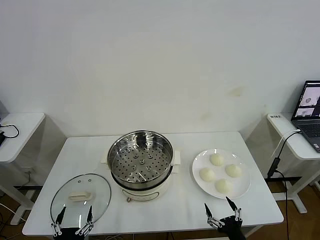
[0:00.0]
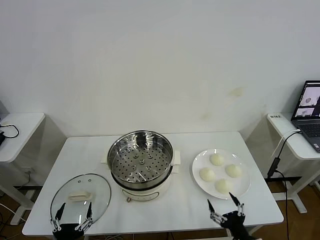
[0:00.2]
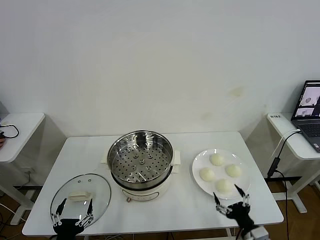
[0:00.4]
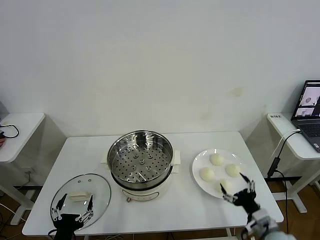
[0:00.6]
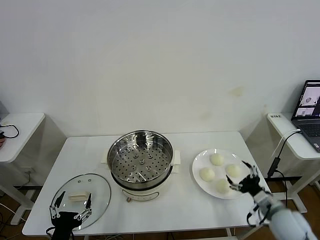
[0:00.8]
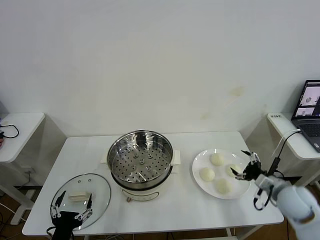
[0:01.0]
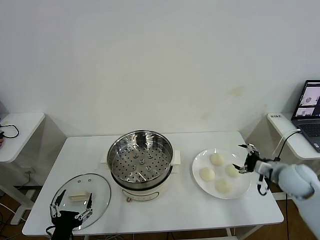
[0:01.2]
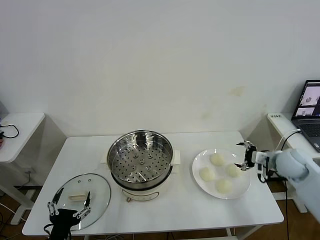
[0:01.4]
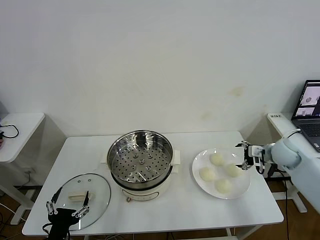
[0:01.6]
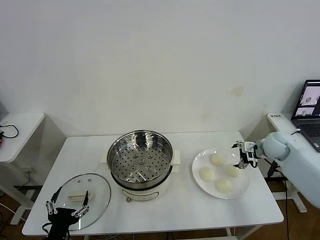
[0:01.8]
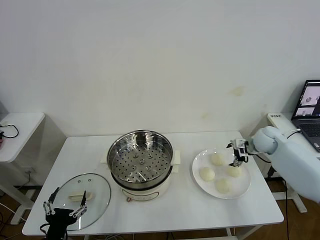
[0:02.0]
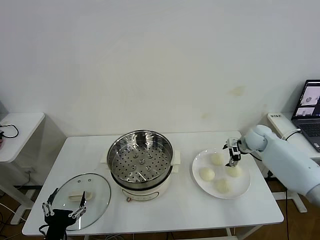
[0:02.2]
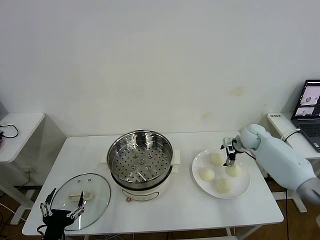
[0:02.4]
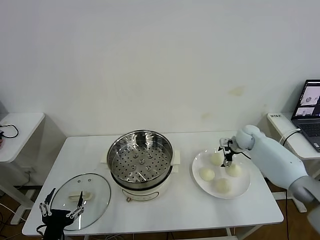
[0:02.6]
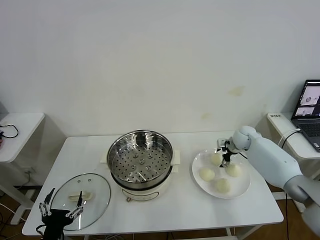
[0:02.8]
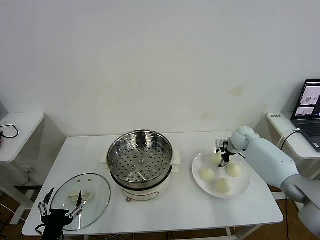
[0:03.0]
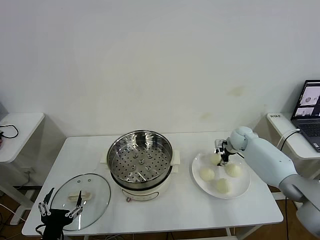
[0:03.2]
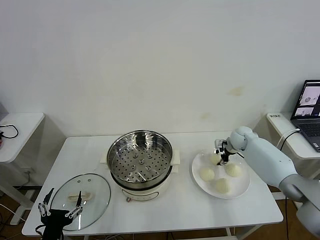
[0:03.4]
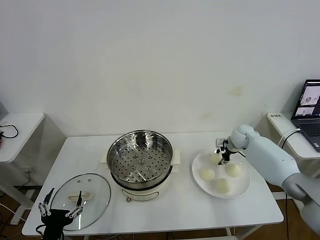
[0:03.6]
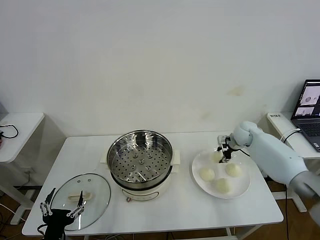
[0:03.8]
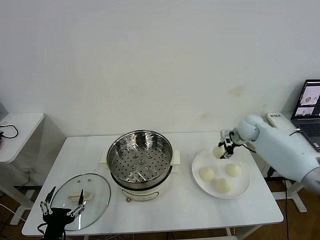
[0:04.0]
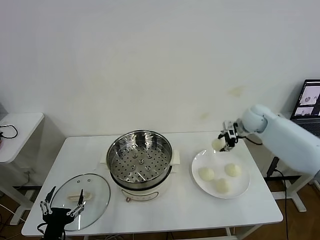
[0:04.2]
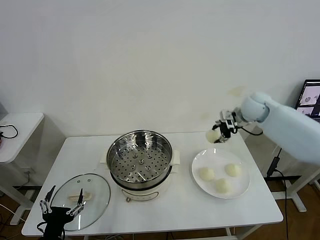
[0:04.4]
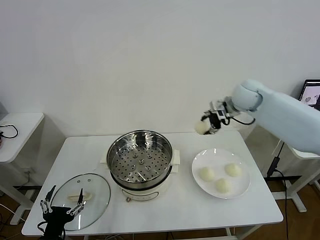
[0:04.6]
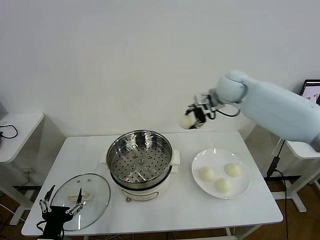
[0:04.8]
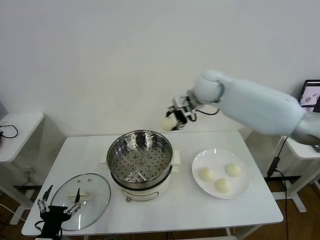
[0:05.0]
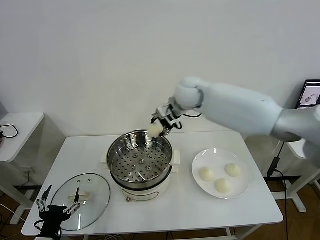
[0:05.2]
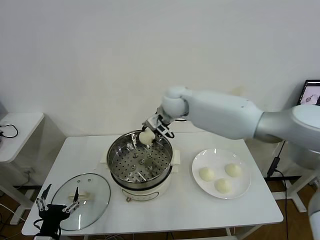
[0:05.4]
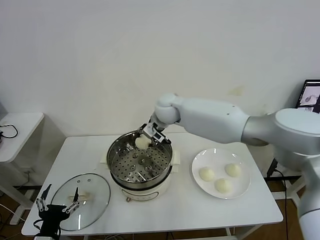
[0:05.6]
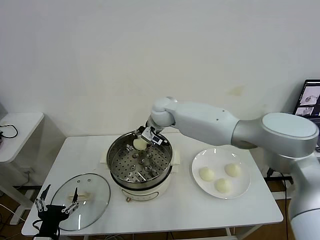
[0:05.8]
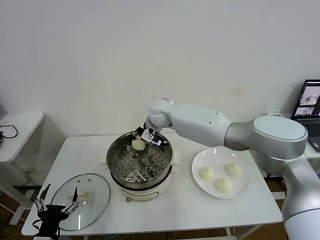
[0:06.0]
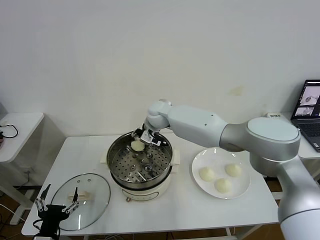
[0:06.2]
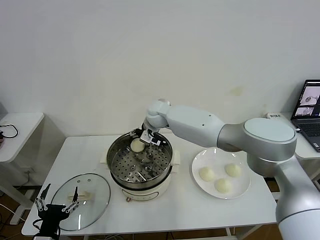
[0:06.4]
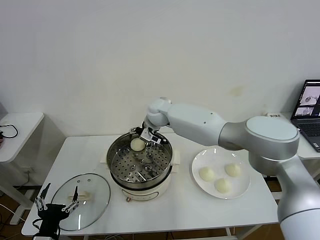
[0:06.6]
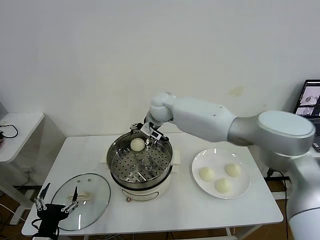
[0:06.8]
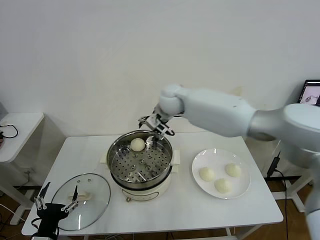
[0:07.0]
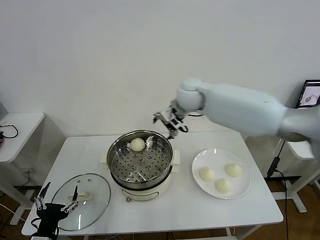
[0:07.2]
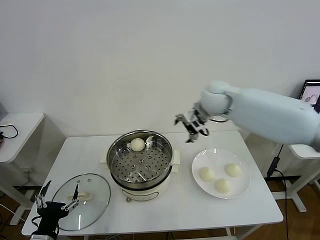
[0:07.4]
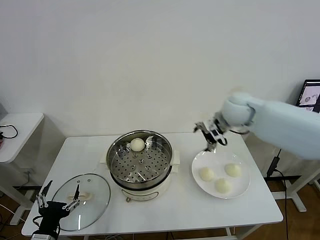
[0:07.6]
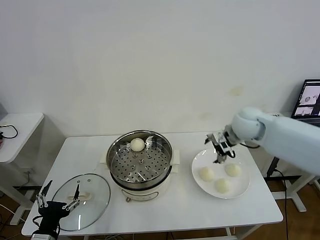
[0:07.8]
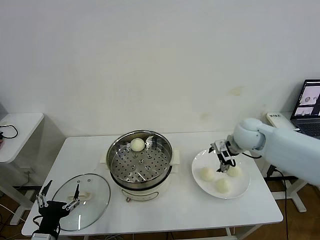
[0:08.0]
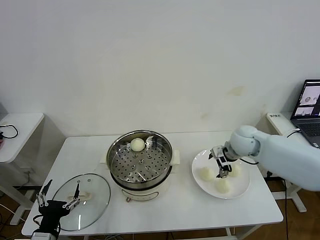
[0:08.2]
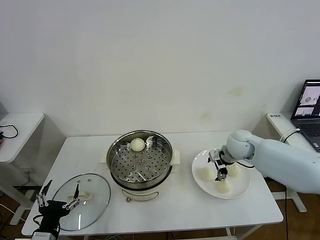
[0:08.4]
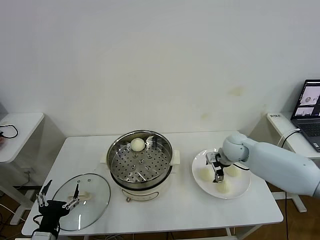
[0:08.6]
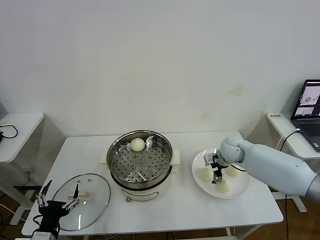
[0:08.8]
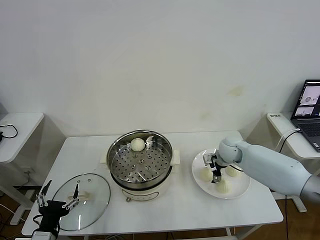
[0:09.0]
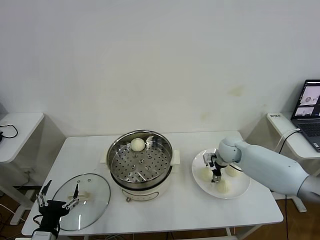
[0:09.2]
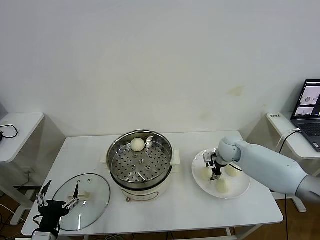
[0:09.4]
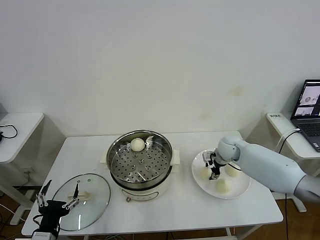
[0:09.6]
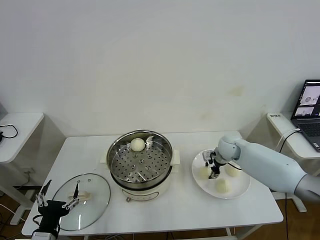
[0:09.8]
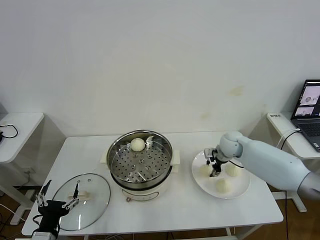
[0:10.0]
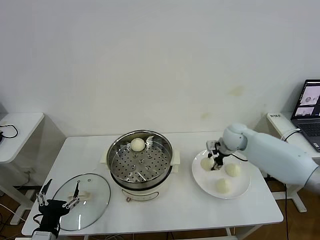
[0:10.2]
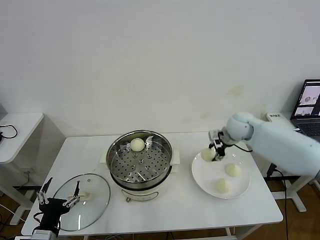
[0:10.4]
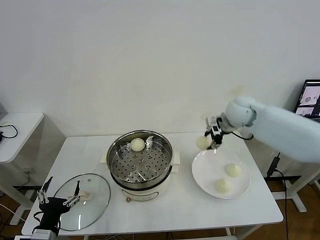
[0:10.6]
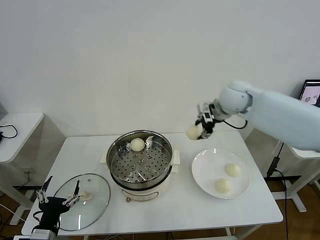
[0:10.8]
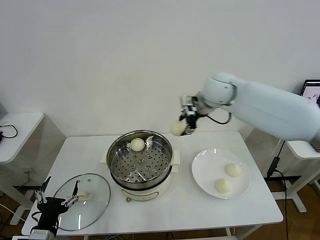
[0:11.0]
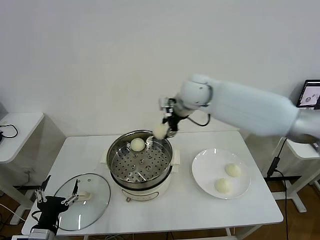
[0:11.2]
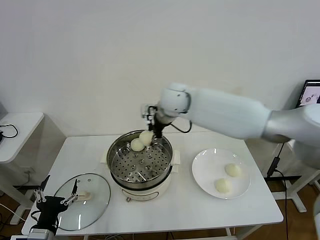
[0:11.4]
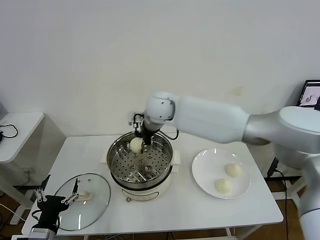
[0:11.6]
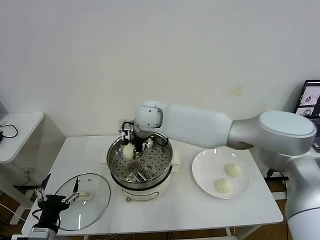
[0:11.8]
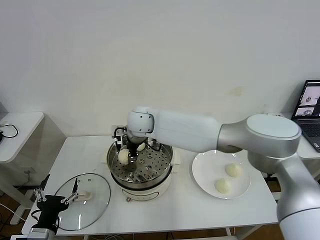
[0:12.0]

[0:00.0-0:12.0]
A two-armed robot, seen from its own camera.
Task of the whole recording: take steamed baozi put them in steamer then cover it.
Step, 0:00.0 to 0:03.4: Grasp the baozi in the plate with right gripper.
Step, 0:03.6 to 0:06.6: Place the baozi on the steamer with right gripper.
Step, 0:06.8 to 0:09.8: Grasp the baozi in the plate with right gripper.
0:01.6 to 0:03.0: The right gripper travels forward, to the left and downward by roughly 15 cm, and closes.
0:03.0 to 0:04.4: The right gripper shifts about 20 cm upward, and closes its fingers.
0:04.4 to 0:06.0: The right gripper is displaced to the left by about 30 cm.
0:06.0 to 0:07.6: The right gripper travels to the right by about 25 cm, and opens up.
0:07.6 to 0:09.0: The right gripper moves downward, approximately 15 cm.
0:09.0 to 0:10.4: The right gripper is displaced upward by roughly 15 cm, and closes its fingers.
0:10.4 to 0:12.0: The right gripper goes roughly 35 cm to the left.

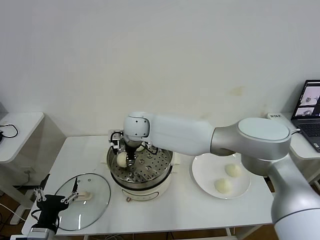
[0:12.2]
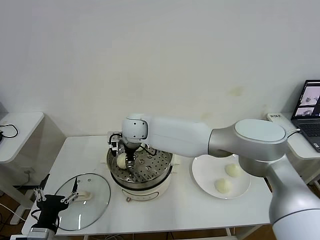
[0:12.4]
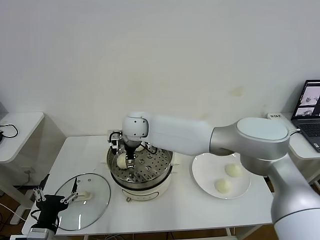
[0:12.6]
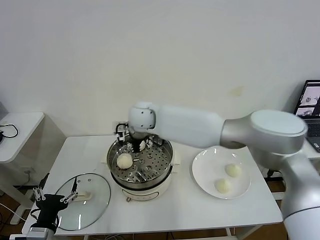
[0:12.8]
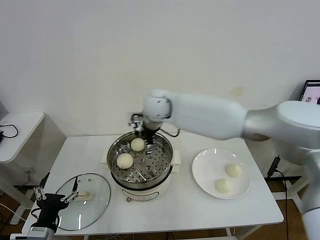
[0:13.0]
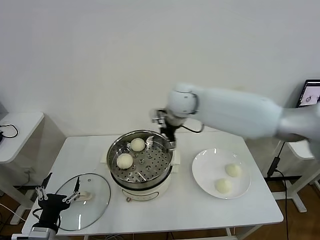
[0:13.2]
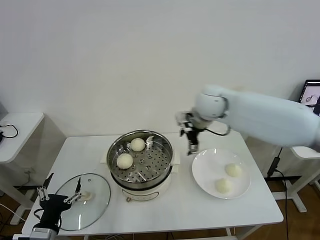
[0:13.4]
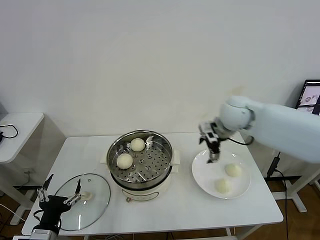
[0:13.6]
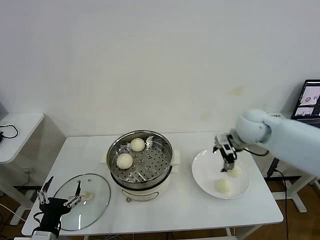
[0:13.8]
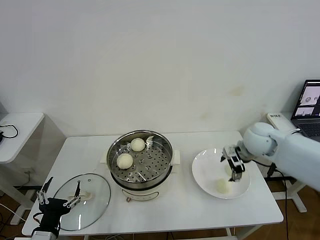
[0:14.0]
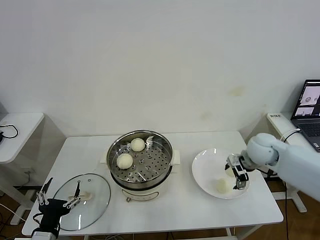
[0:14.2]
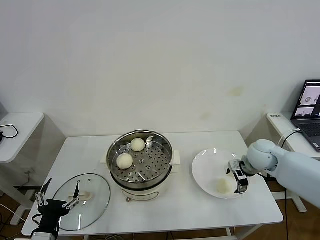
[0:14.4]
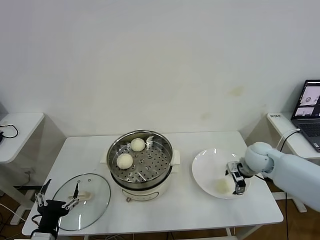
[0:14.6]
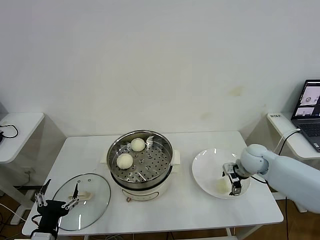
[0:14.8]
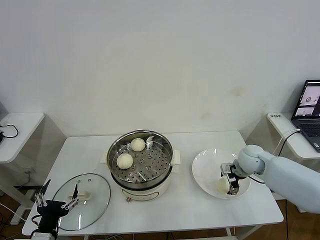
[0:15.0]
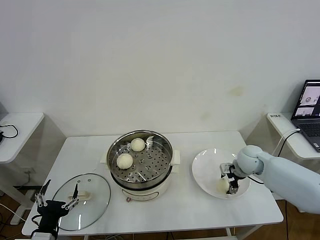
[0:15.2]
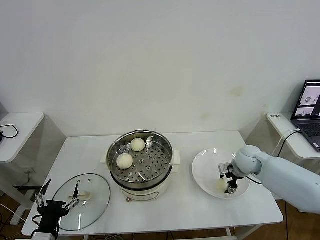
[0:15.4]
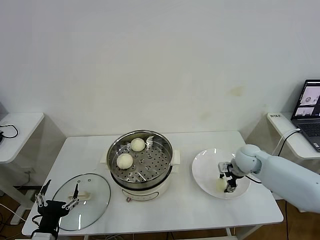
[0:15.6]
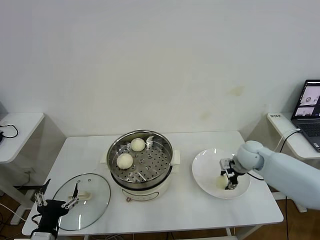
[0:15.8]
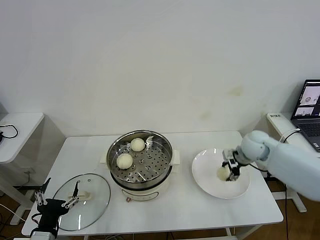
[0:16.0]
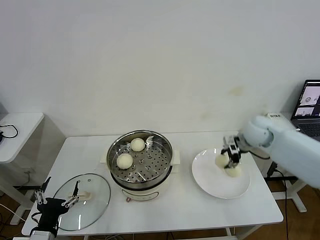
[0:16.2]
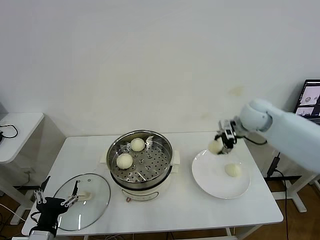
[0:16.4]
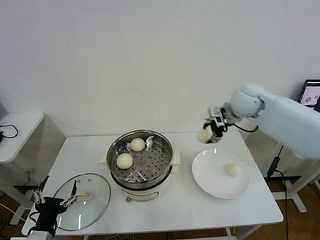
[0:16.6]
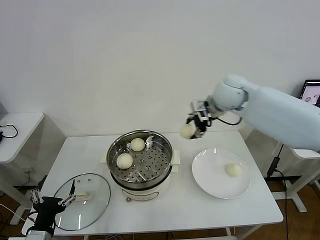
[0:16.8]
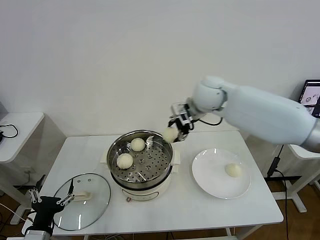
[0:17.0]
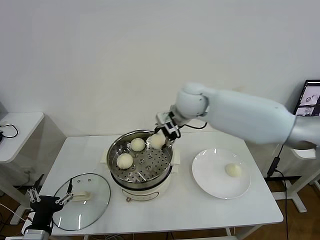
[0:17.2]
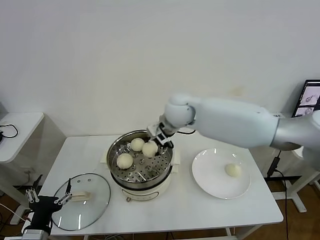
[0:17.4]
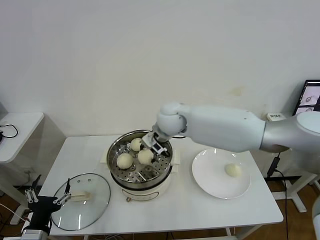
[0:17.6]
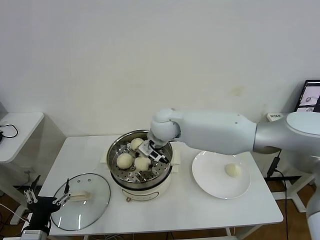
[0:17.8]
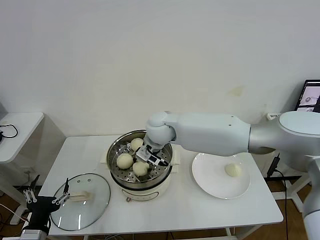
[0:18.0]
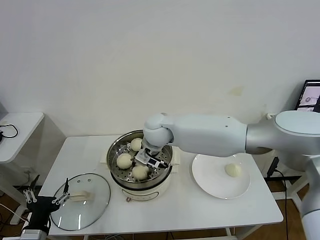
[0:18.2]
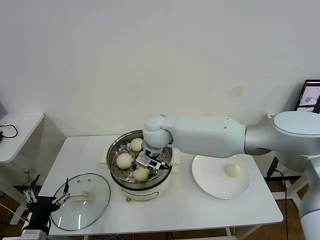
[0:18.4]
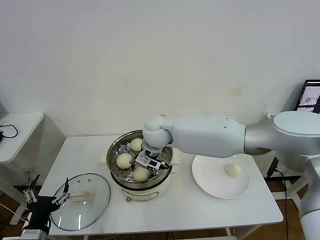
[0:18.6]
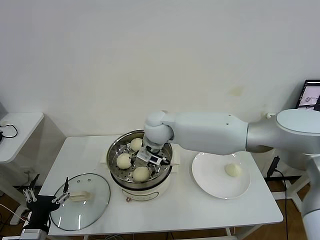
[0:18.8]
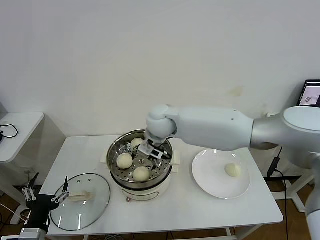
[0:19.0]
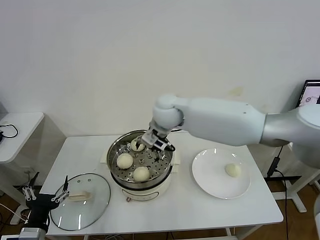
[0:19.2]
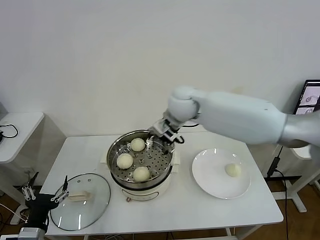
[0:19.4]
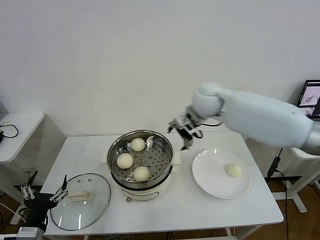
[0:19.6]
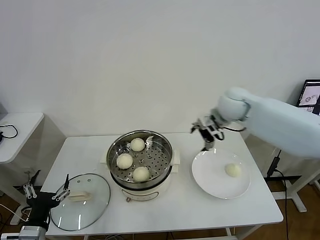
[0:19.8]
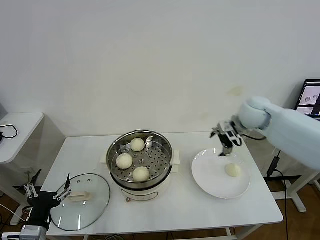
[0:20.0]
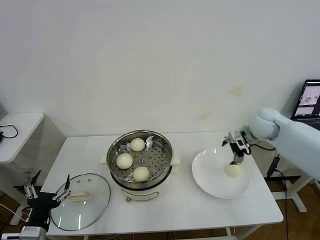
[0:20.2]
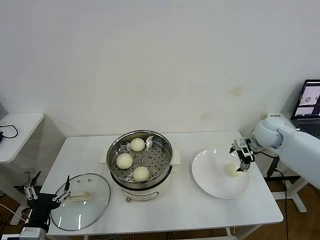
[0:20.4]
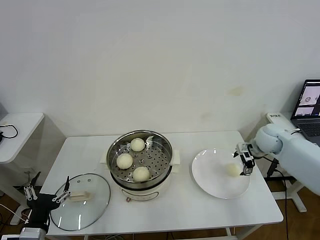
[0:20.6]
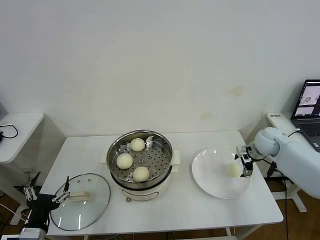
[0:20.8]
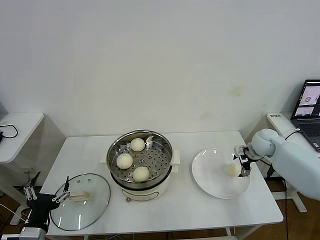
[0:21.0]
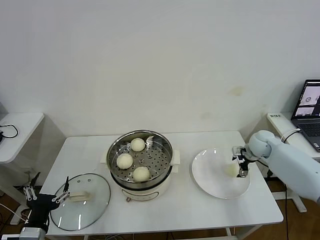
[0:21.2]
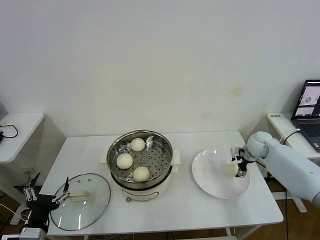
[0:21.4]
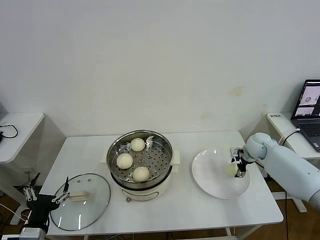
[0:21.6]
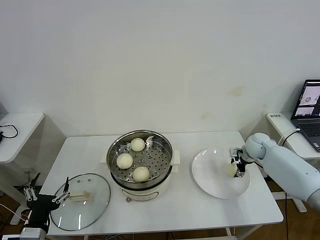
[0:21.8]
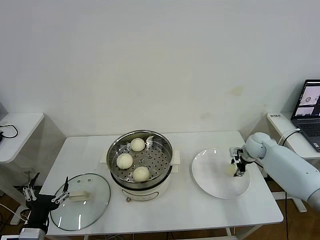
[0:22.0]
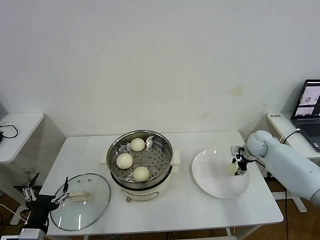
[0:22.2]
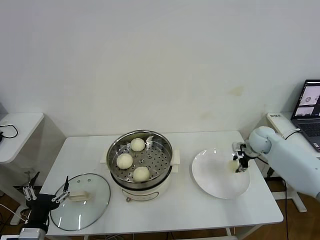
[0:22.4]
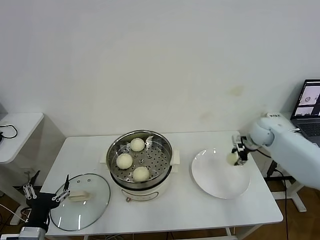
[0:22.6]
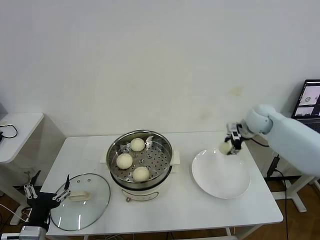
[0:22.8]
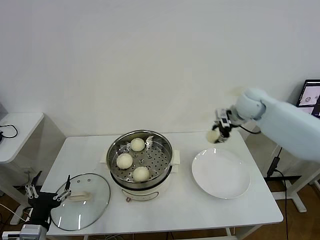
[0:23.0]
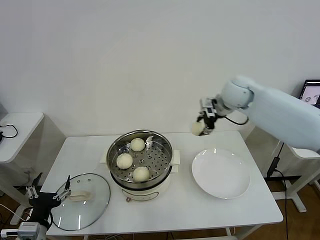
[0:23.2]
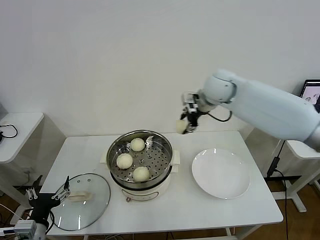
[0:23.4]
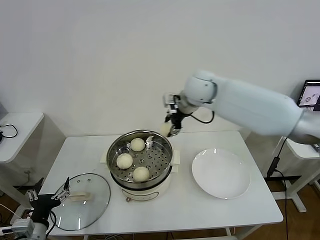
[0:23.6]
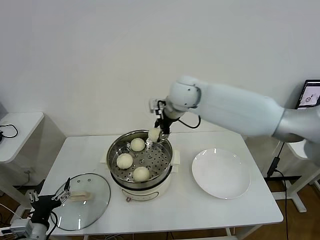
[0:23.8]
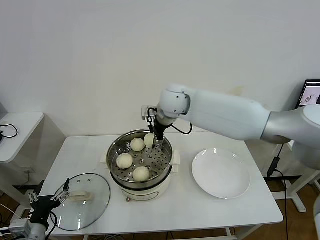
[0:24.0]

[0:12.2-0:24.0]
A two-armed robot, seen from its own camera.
Task of the whole recording: take steamed baozi put them in steamer then cover it.
Step, 0:12.8 to 0:15.6: Grasp the baozi in the plate with right gripper.
Step, 0:15.8 to 0:18.8: Place the baozi on the steamer with right gripper.
Step, 0:19.0 to 0:22.0: Grasp the baozi in the plate with right gripper.
0:12.2 to 0:13.6: The right gripper goes roughly 35 cm to the right, and opens.
0:13.6 to 0:15.2: The right gripper is displaced downward and to the right by roughly 20 cm, and closes.
0:15.2 to 0:16.6: The right gripper is displaced upward by approximately 25 cm.
0:16.6 to 0:18.2: The right gripper travels to the left by approximately 25 cm.
0:18.2 to 0:19.6: The right gripper is displaced to the right and upward by roughly 20 cm, and opens its fingers.
0:19.6 to 0:21.0: The right gripper is displaced to the right and downward by some 30 cm.
0:21.0 to 0:22.6: The right gripper moves upward, some 5 cm, and closes its fingers.
0:22.6 to 0:24.0: The right gripper is displaced to the left by about 35 cm.
